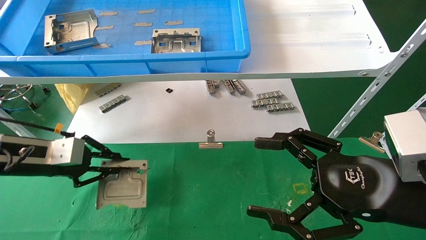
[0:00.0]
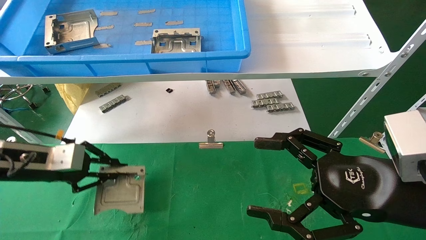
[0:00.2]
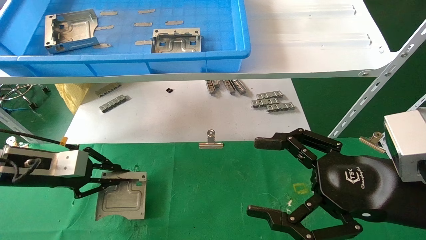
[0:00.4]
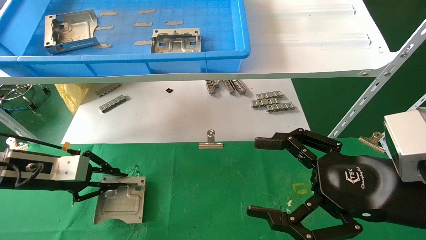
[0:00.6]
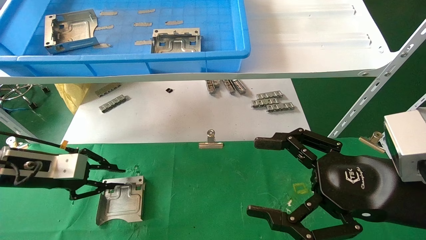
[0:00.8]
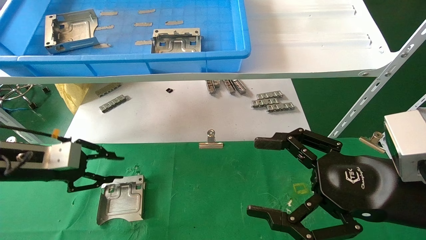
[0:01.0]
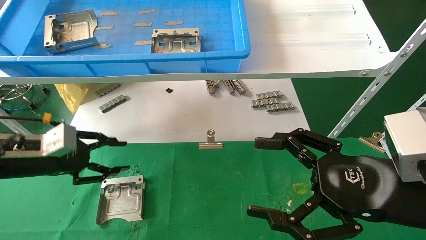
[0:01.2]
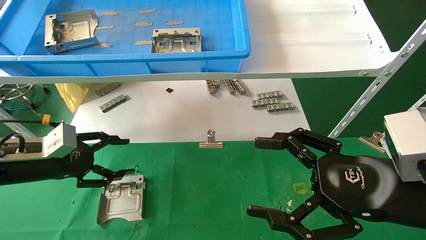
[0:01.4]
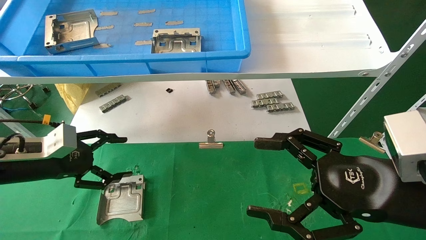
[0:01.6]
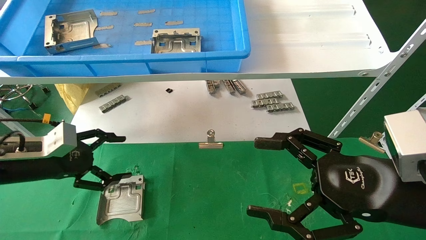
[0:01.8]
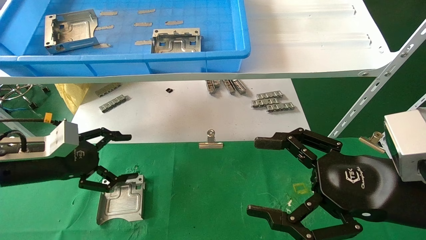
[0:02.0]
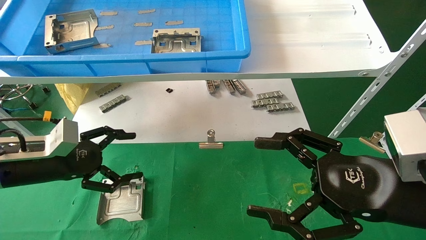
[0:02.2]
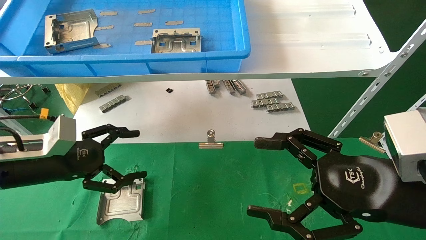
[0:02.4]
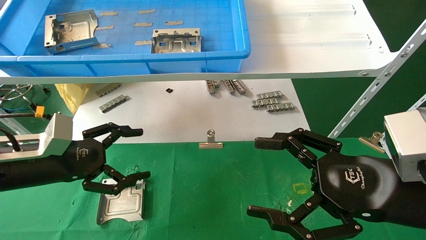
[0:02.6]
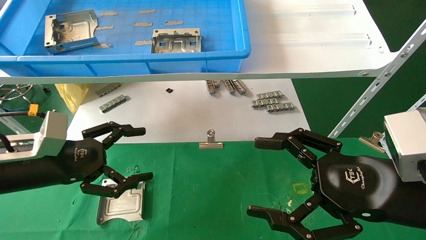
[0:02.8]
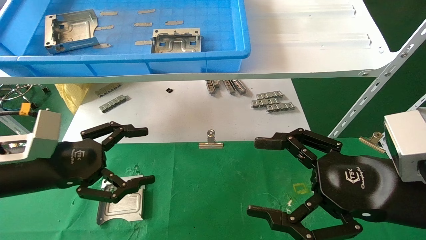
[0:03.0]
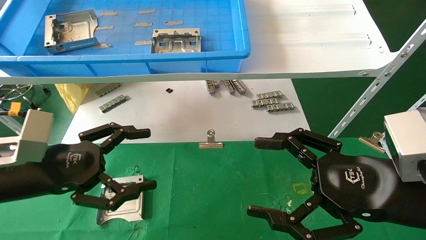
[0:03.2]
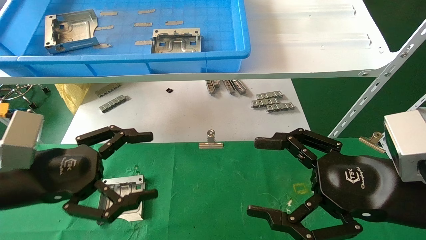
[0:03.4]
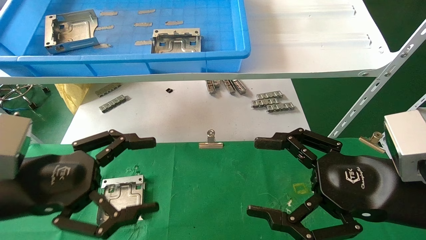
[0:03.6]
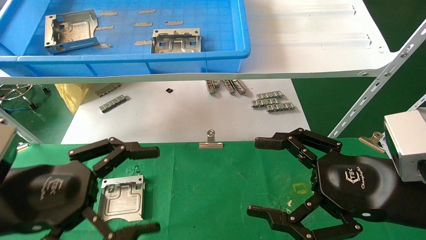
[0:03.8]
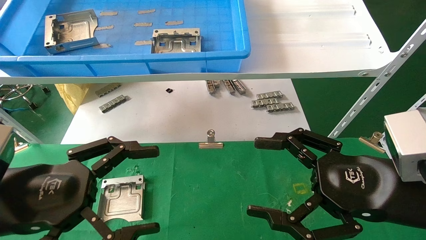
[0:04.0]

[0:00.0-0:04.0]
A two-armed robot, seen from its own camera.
Task of the whole recording: use the mechanical arm to pick up the parts and place them on the table.
0:00.0 to 0:01.4: The left gripper opens up.
0:01.4 to 0:02.6: The left gripper ends up approximately 5 cm from where it was, and opens its fingers.
0:02.6 to 0:04.0: The left gripper is displaced backward by some 10 cm.
